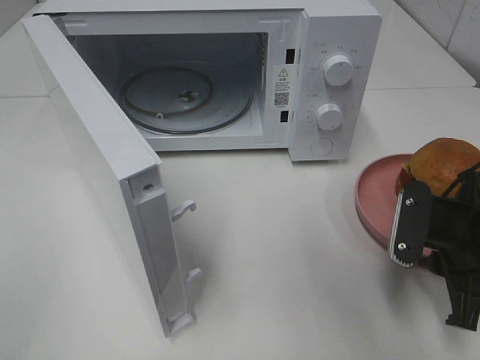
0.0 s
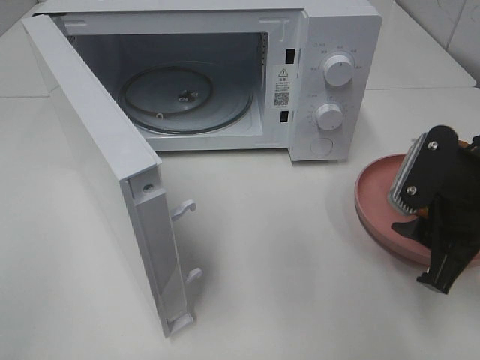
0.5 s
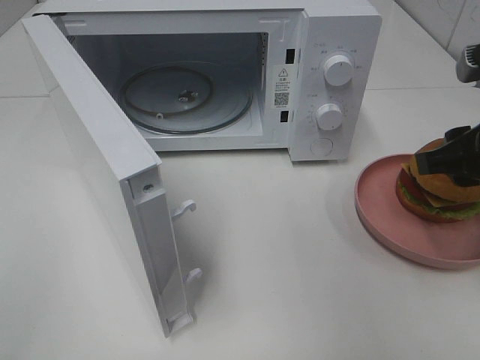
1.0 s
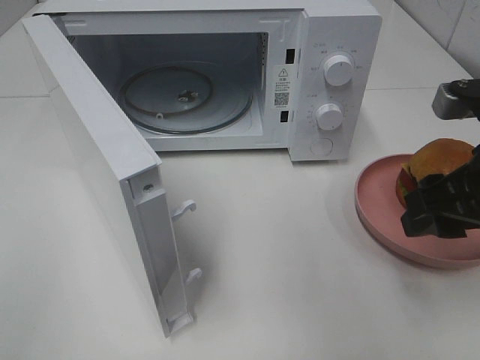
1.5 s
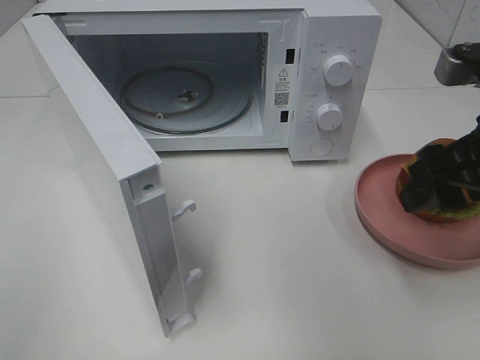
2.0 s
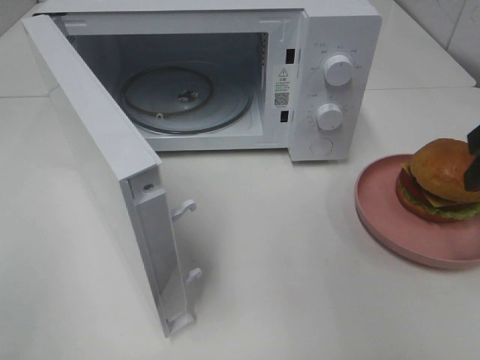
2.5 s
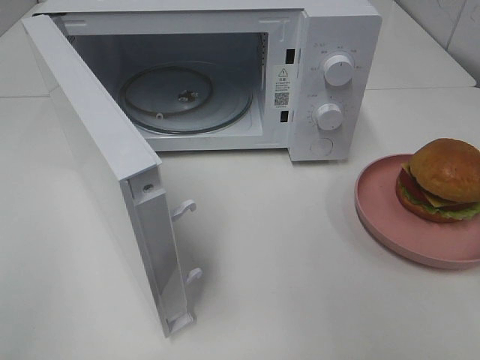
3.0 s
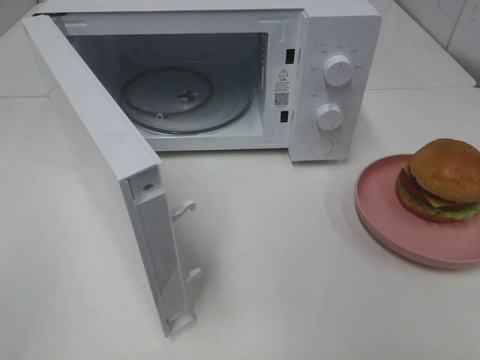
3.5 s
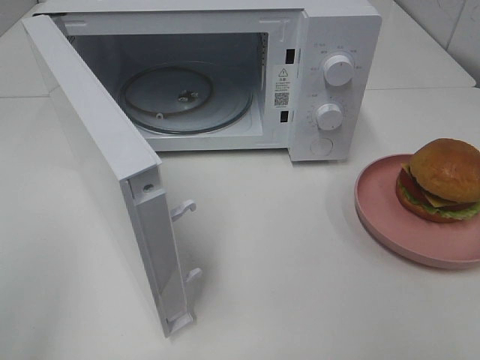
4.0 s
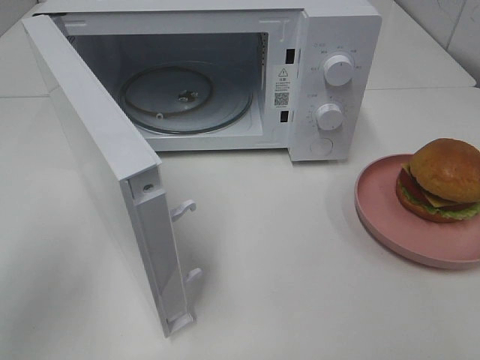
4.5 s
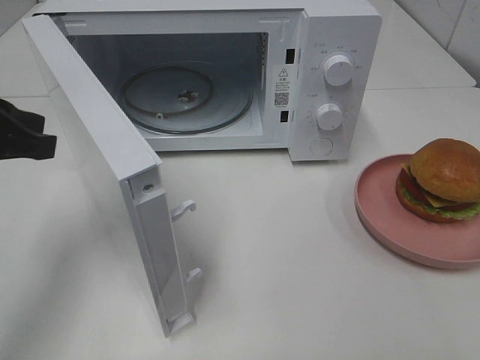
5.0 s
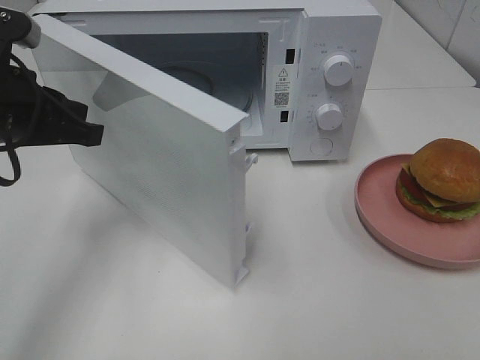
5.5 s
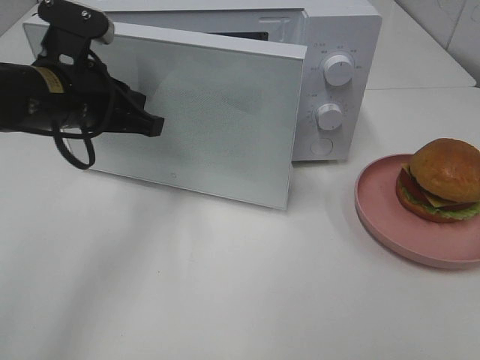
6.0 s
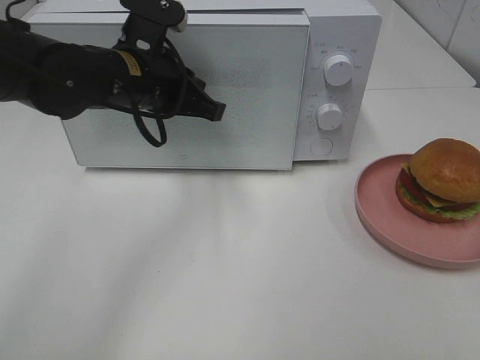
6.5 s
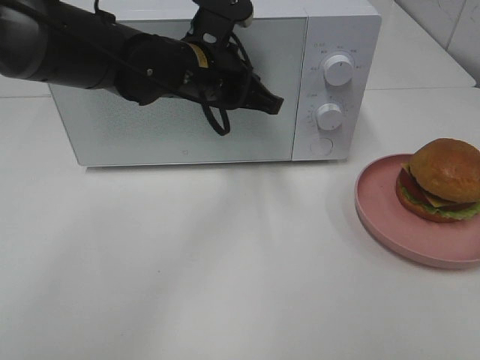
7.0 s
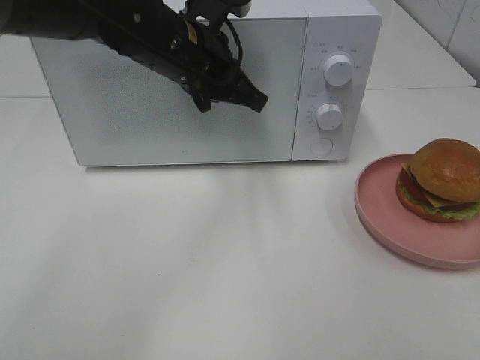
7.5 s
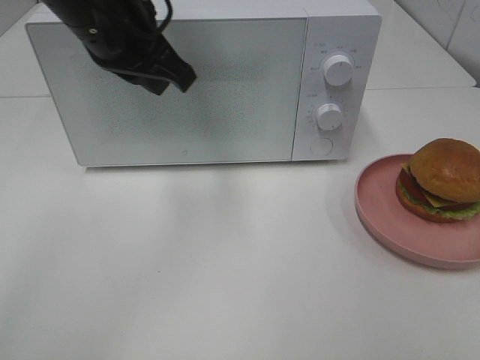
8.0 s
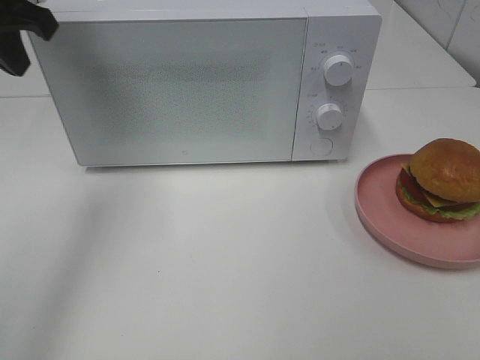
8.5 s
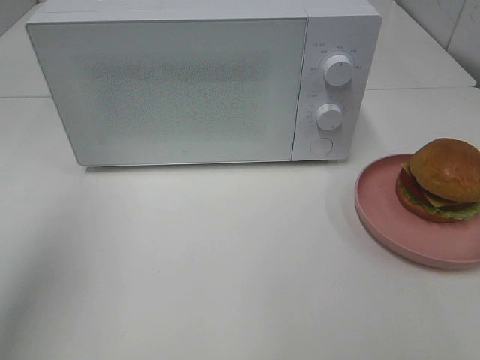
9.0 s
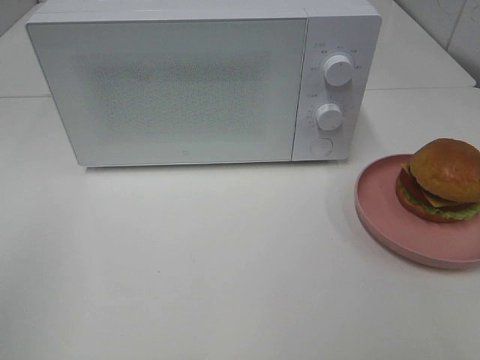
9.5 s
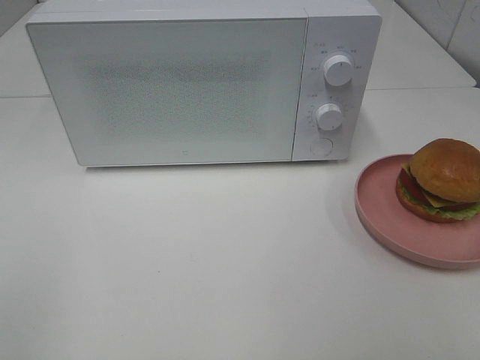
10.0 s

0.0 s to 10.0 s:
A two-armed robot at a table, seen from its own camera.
Task of the whole recording: Heat the burger.
Step, 0.0 to 7.0 s: Left hand: close the microwave door.
0.0 to 2.0 s: The right gripper moves upward, some 15 cm, and opens.
2.0 to 4.0 s: The right gripper heads backward, covering about 20 cm.
4.0 to 6.0 s: The left gripper goes some 30 cm forward and to the right.
6.0 to 8.0 s: The left gripper travels upward and to the right by some 10 cm.
8.0 to 10.0 s: The left gripper travels backward and to the left by some 40 cm.

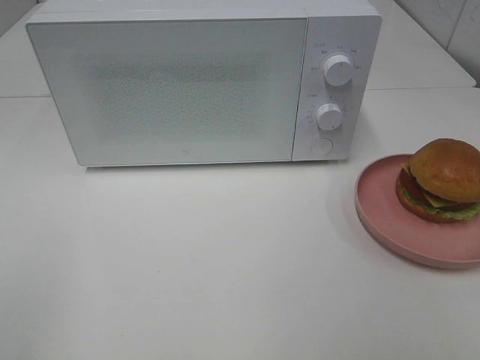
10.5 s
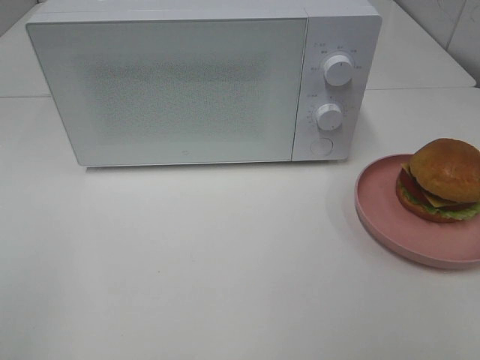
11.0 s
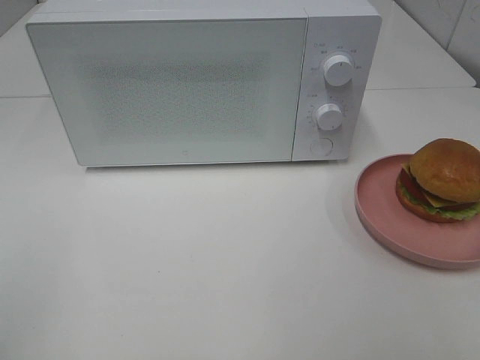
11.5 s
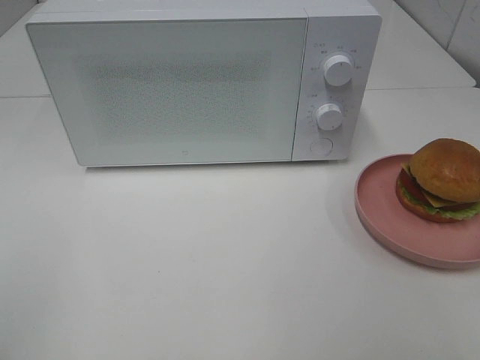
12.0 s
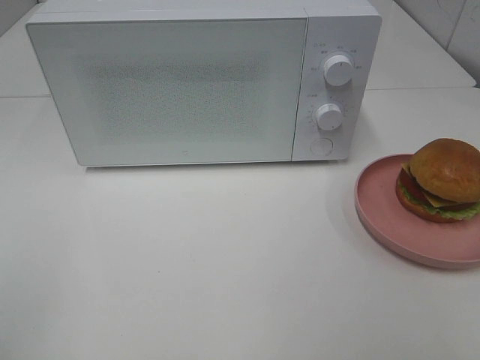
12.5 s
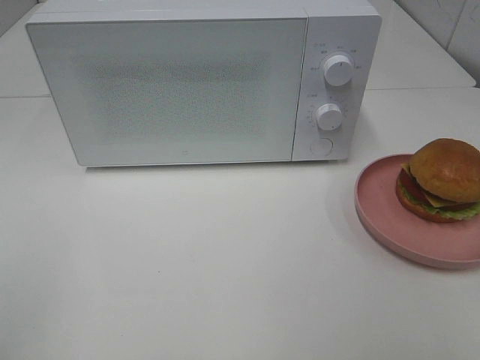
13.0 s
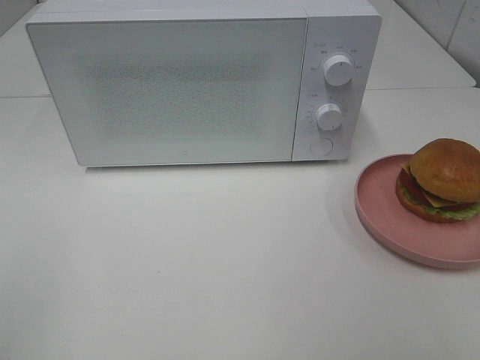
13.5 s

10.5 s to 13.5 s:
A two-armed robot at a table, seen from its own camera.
Task of the whole recording: Heat the burger.
12.0 to 13.5 s: Neither gripper changes place.

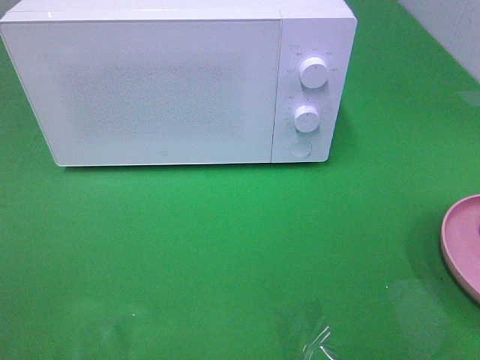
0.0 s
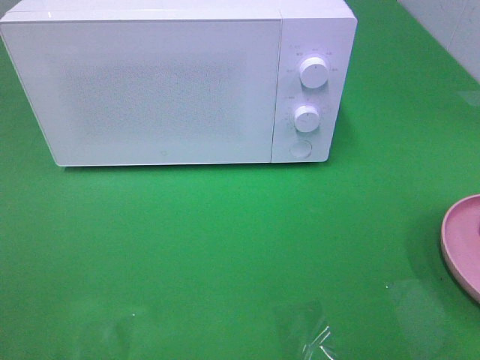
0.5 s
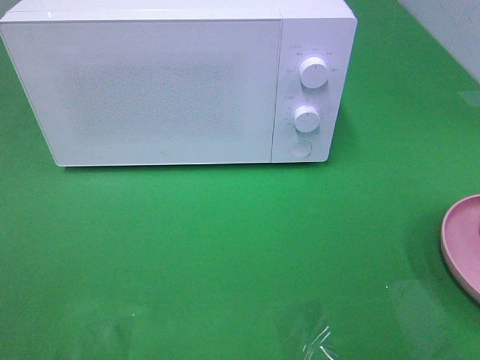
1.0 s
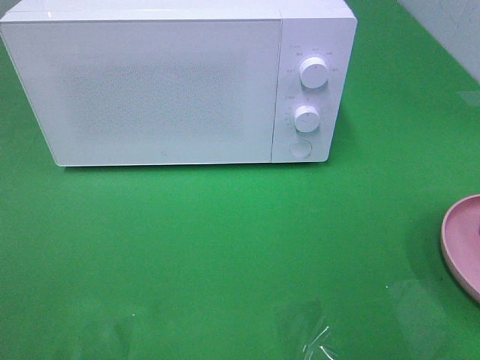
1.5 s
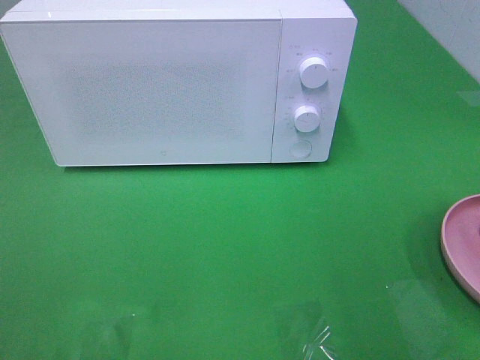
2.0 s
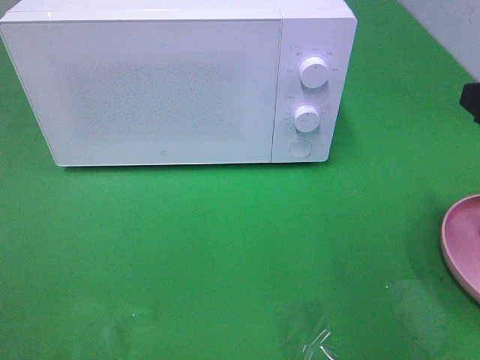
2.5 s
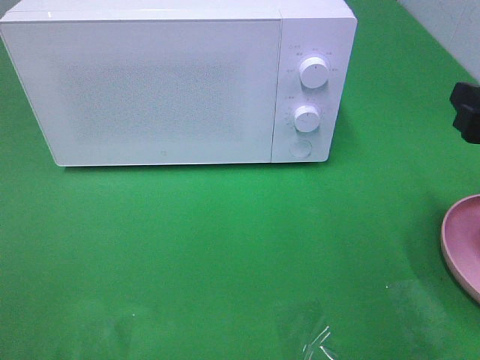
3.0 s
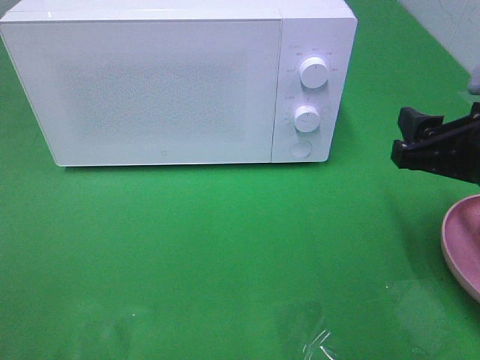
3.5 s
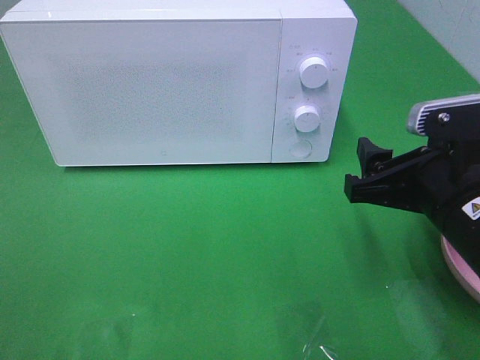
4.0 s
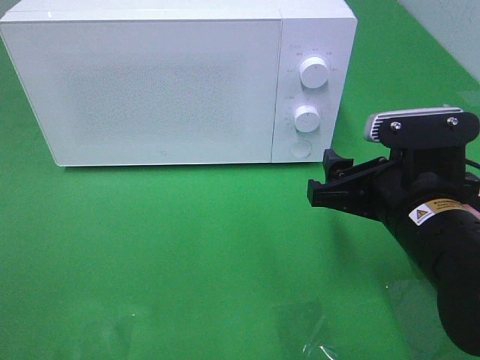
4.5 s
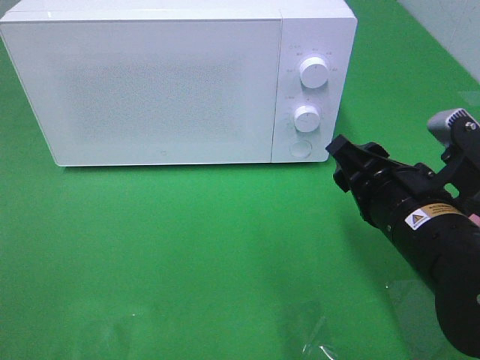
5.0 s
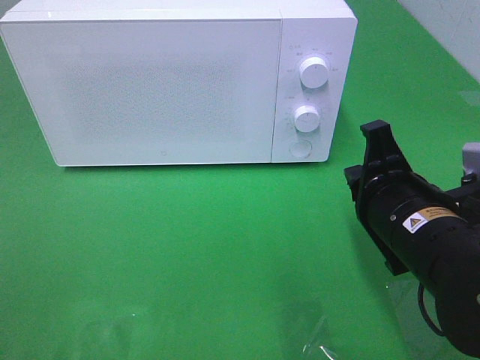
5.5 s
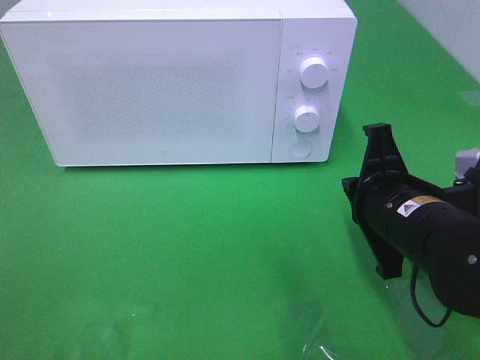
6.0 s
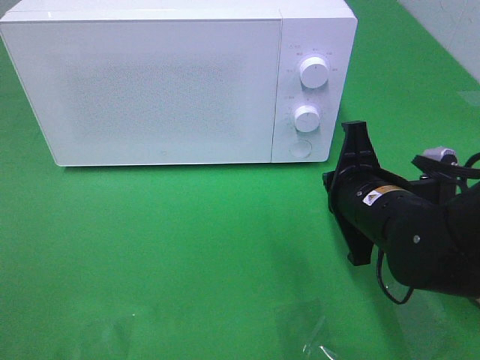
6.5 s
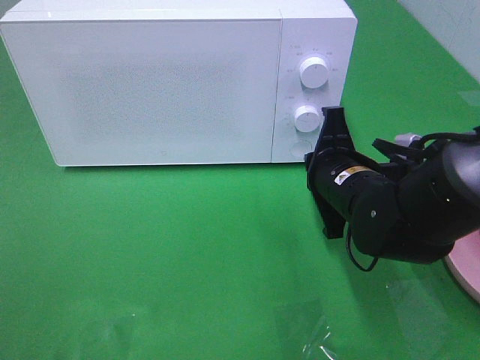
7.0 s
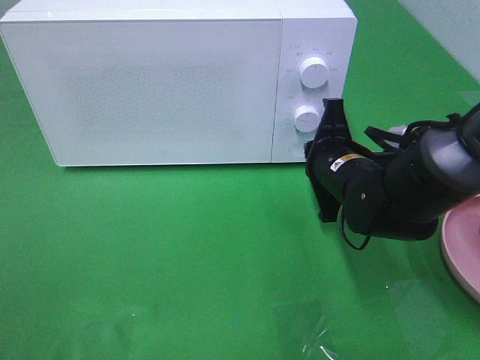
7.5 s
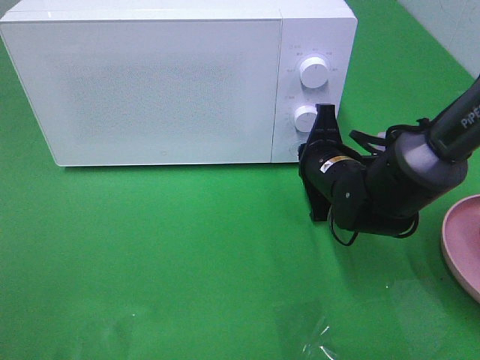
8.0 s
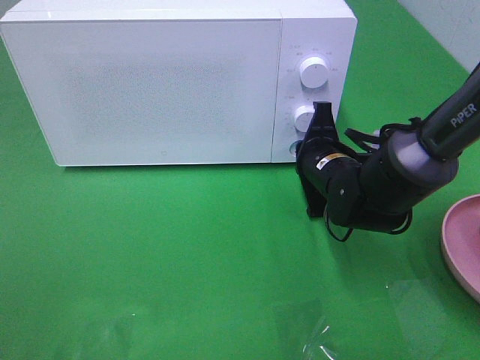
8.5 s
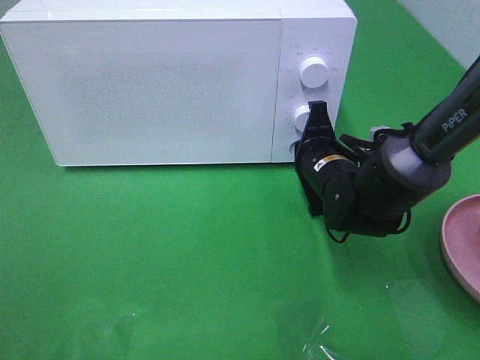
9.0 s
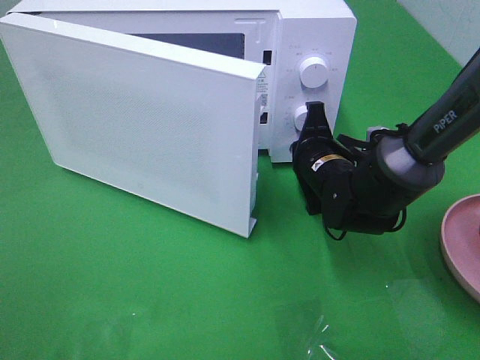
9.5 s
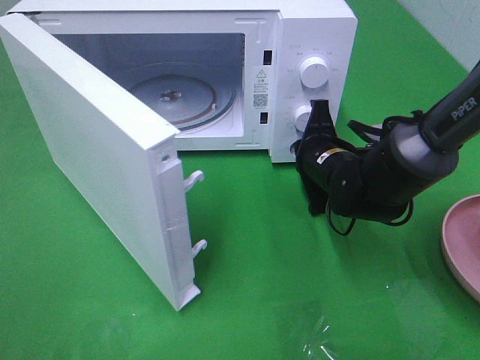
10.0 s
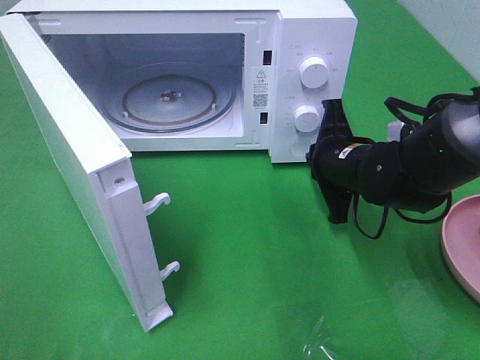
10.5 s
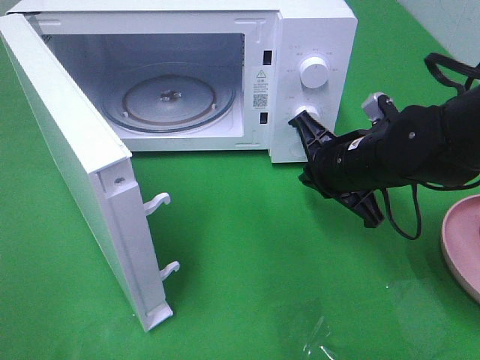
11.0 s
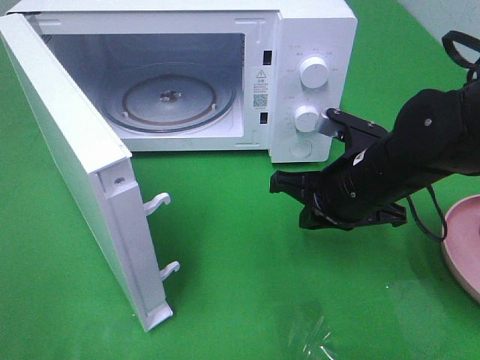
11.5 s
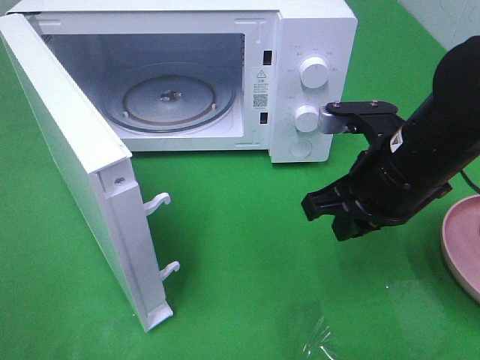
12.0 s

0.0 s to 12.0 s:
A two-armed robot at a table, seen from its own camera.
Task of the whole recording: Heat the burger.
Step, 0.0 to 10.5 s: Right hand: press the switch.
2.0 to 4.0 s: The right gripper moves downward, to the left and forward, about 15 cm.
4.0 to 6.0 s: The right gripper closes.
6.0 to 8.0 s: The right gripper heads forward and downward, covering some 15 cm.
10.0 to 12.0 s: The right gripper moves backward and upward, approximately 15 cm.
